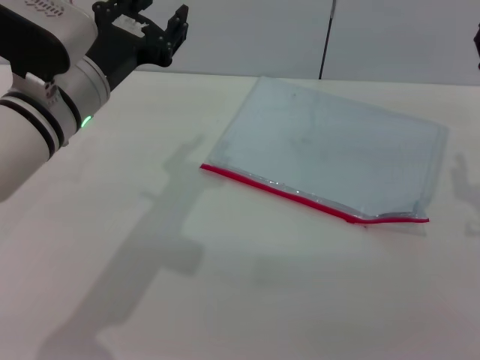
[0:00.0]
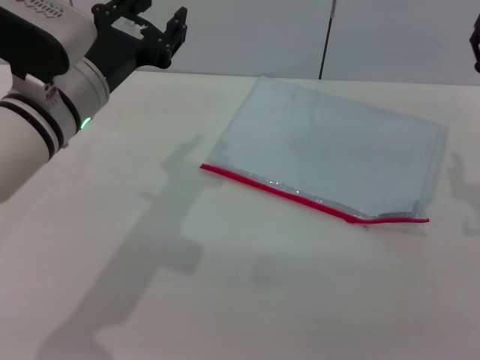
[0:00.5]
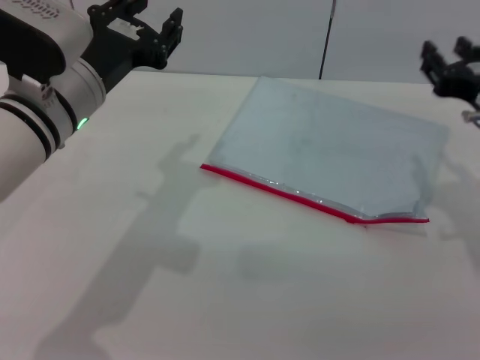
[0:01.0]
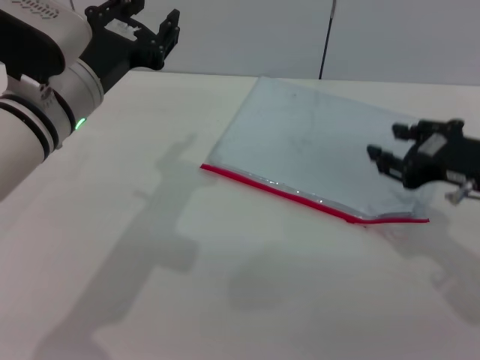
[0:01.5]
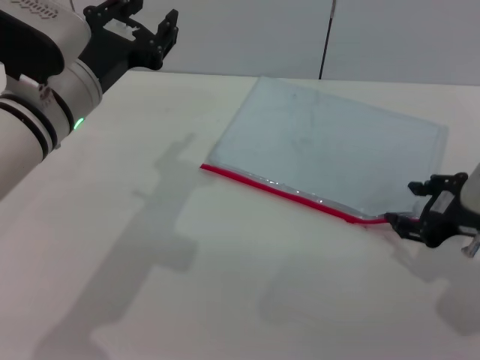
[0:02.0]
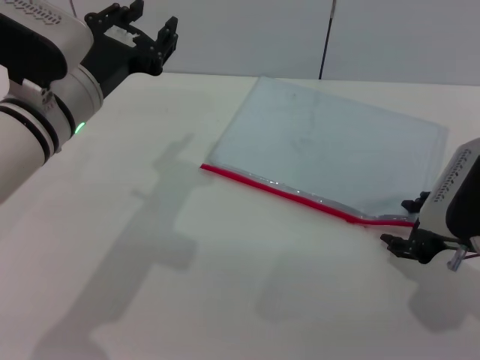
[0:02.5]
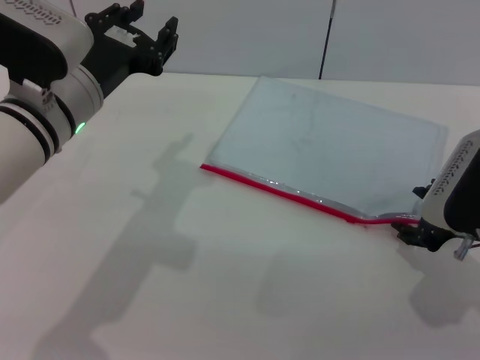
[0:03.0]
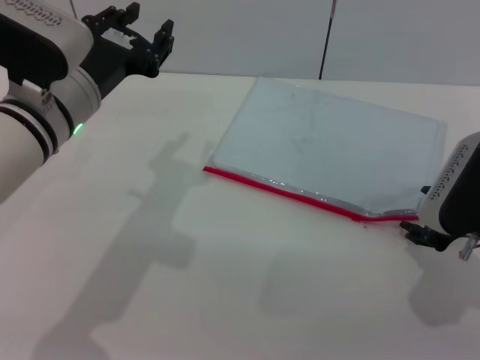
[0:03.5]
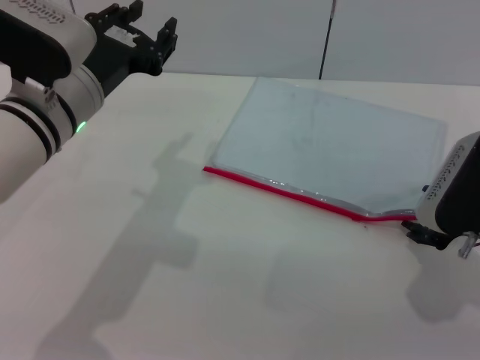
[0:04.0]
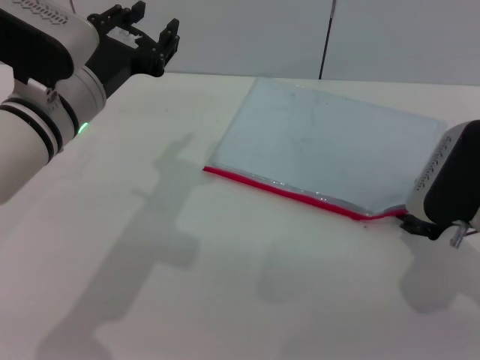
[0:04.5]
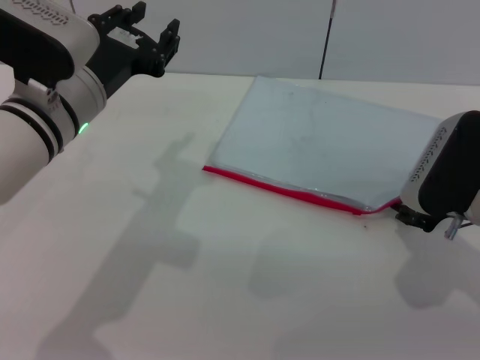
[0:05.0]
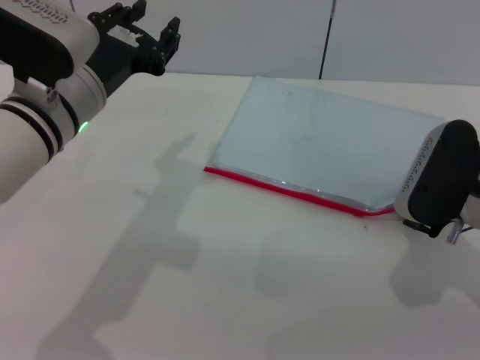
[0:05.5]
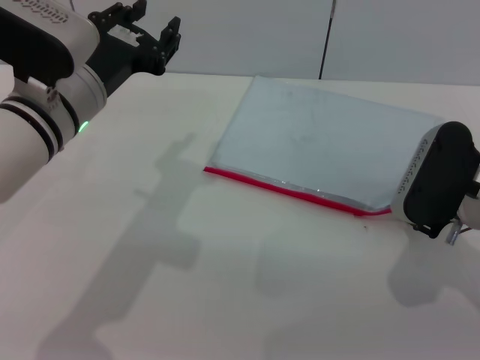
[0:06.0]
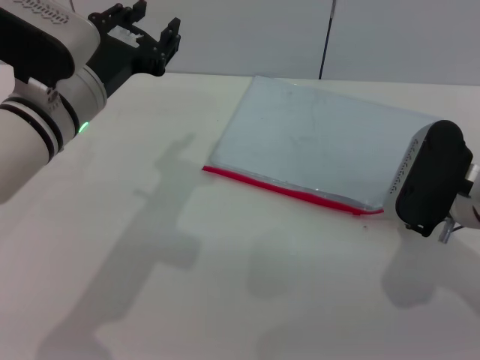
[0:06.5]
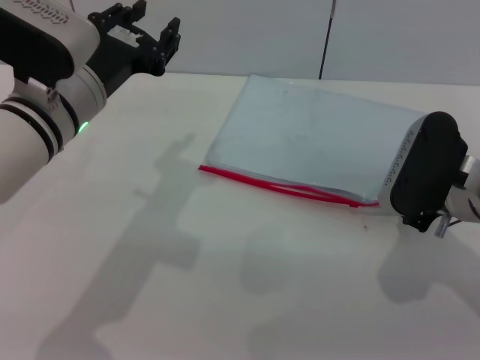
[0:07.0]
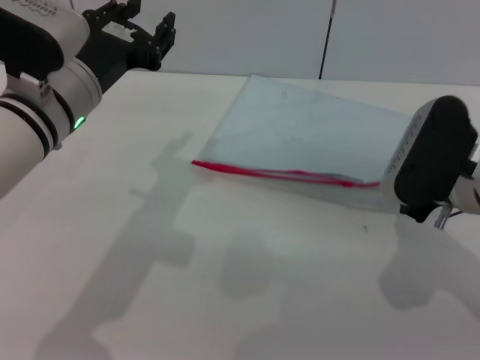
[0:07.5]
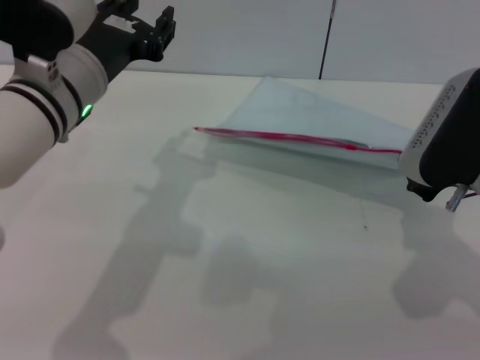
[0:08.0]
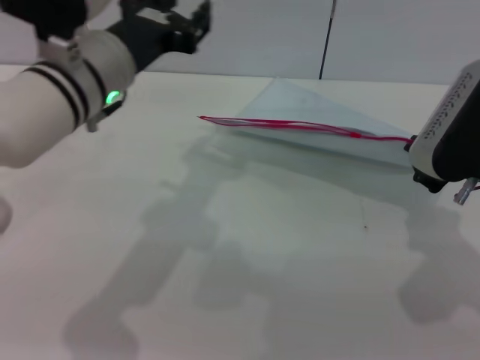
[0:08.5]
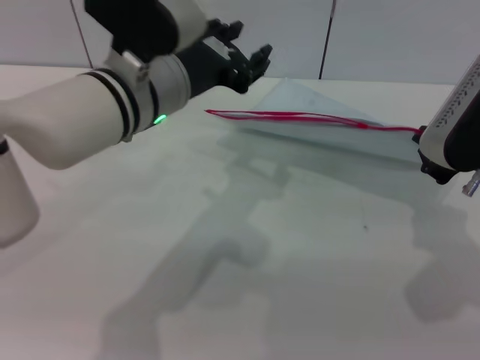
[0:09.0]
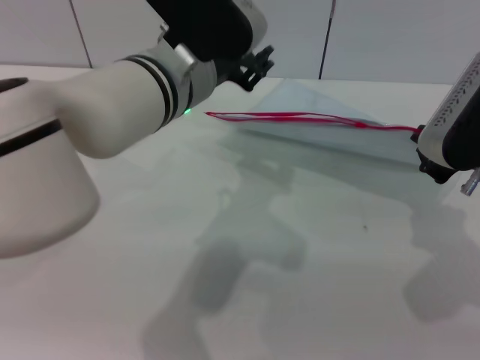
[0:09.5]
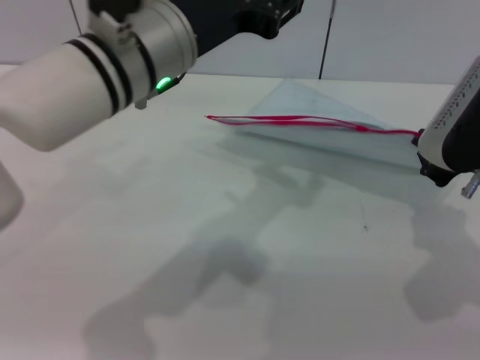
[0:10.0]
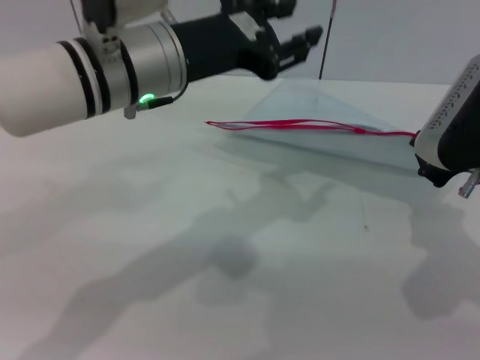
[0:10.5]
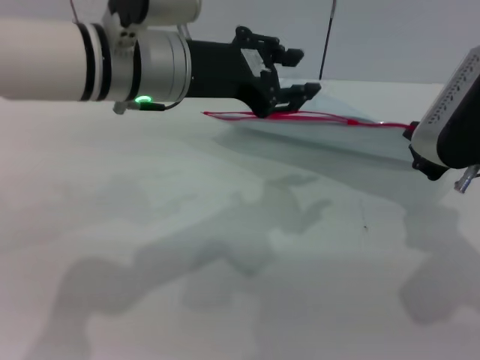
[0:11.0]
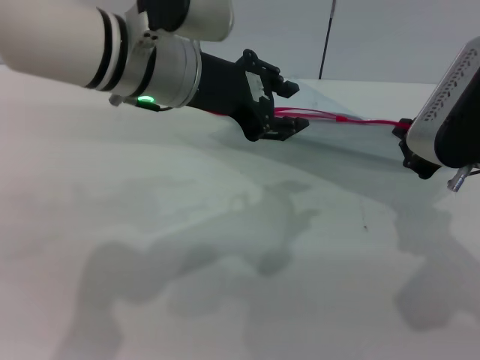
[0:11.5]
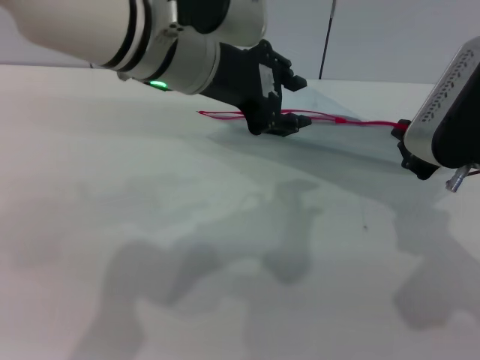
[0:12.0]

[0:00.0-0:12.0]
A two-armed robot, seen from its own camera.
Step, 0:00.0 to 0:08.5: Pick up the transparent plastic bag with the right gripper.
0:02.0 to 0:04.0: There are only small adjustments of the grippers.
0:04.0 to 0:06.0: The grippers make only small movements.
0:06.0 to 0:08.0: The right gripper goes approximately 5 cm upward, and closes its fingers.
0:08.0 to 0:10.0: The left gripper goes some 5 cm to the right.

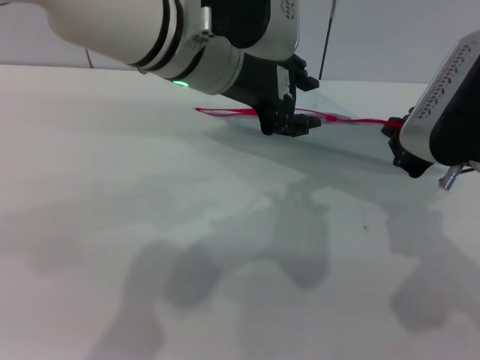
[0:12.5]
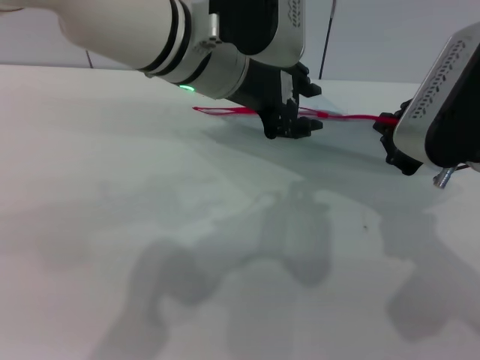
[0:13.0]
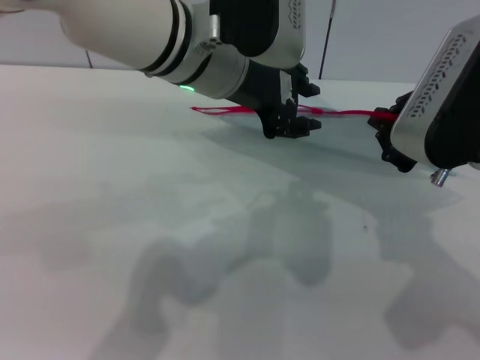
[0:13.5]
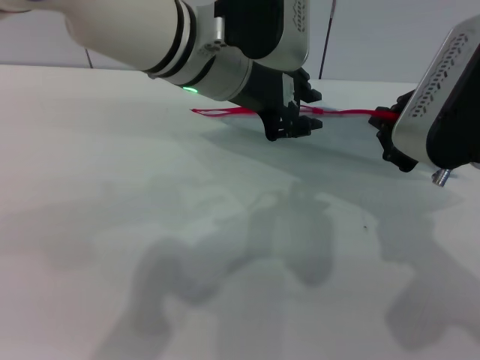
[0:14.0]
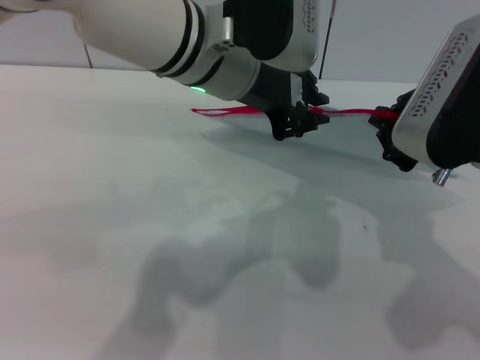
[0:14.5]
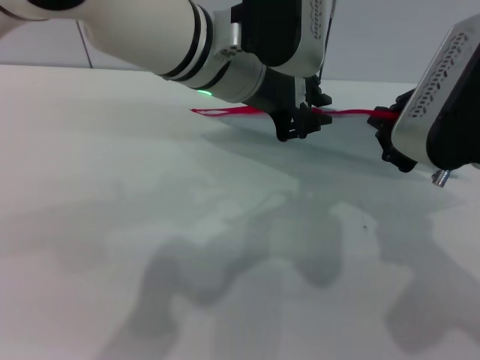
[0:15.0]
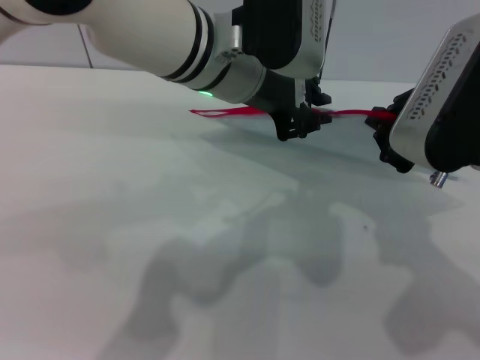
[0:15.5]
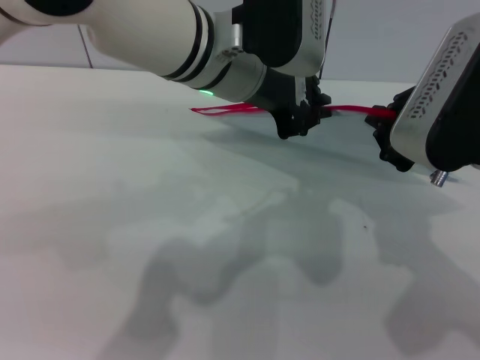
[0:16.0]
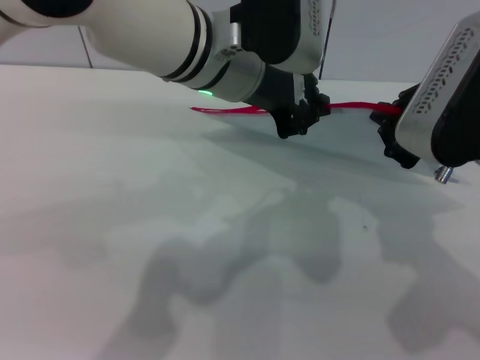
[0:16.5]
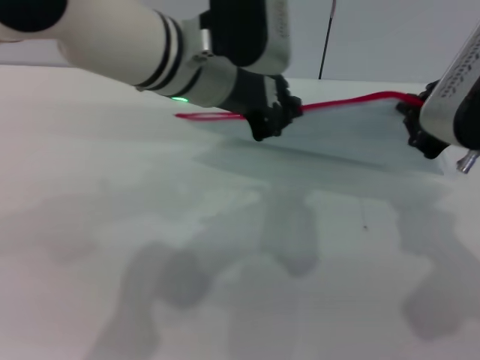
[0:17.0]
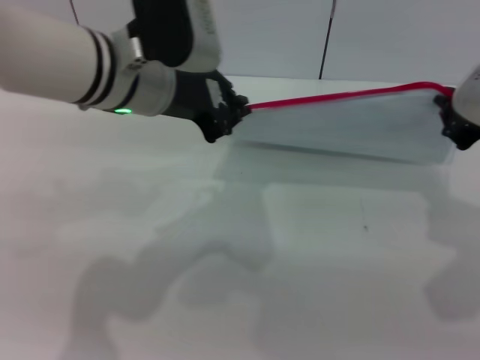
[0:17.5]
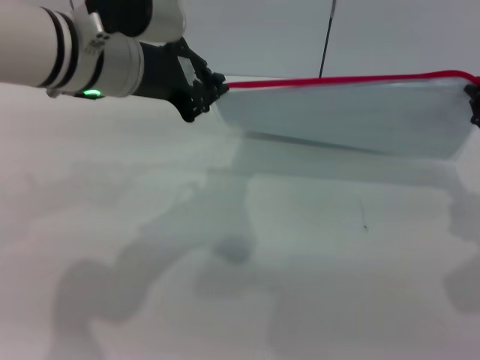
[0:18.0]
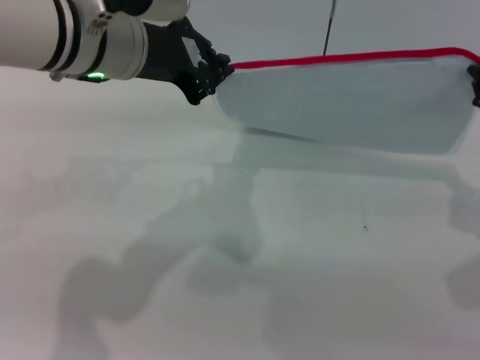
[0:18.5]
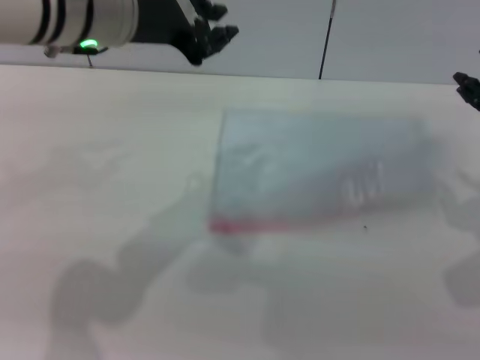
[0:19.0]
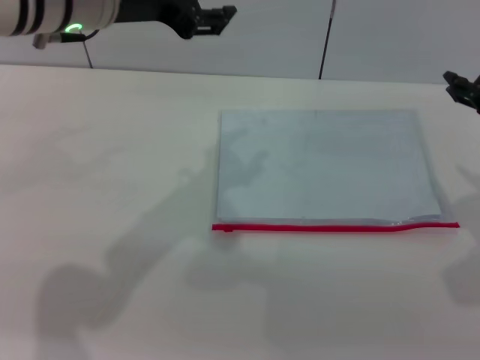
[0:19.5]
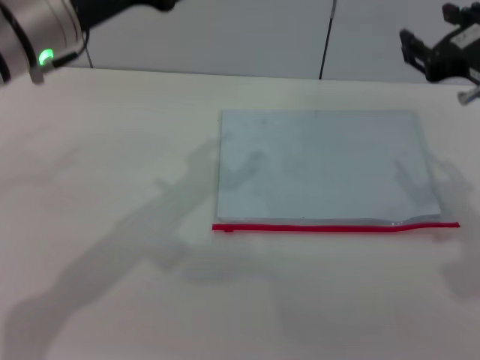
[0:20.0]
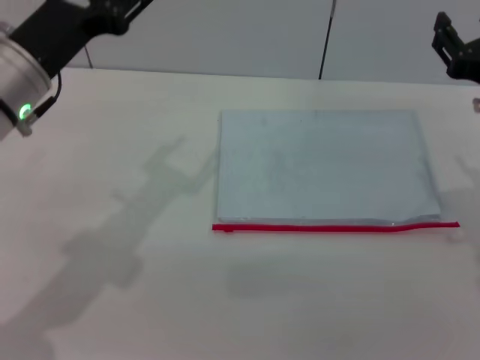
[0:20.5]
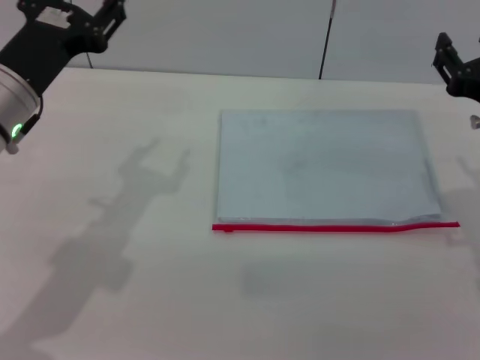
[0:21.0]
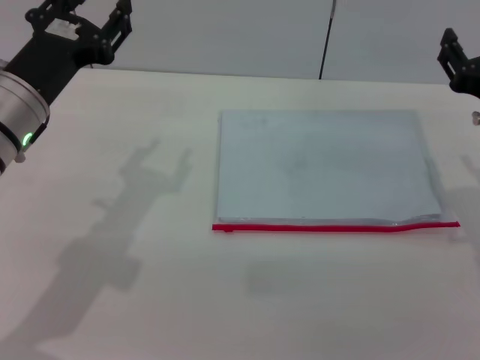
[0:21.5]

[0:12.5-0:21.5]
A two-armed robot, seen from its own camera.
Step, 0:12.5 to 0:18.5: Pulling up the zipper on the transparent plastic bag with the left gripper to close it.
0:12.5 to 0:14.5: The left gripper closes.
0:14.5 to 0:17.0: There are only small adjustments of the grippers.
0:17.0 to 0:19.5: The left gripper moves to the left, roughly 10 cm, and opens up; the right gripper opens.
0:19.5 to 0:21.5: The left gripper travels downward, to the left and backward by approximately 15 cm. The right gripper shifts some 10 cm downward.
